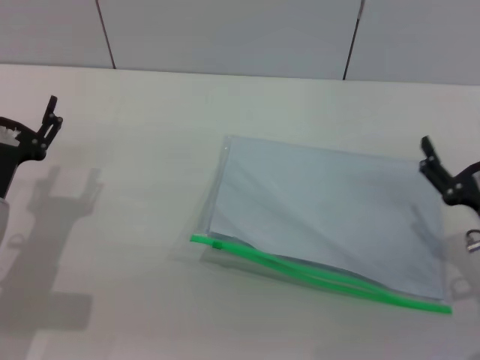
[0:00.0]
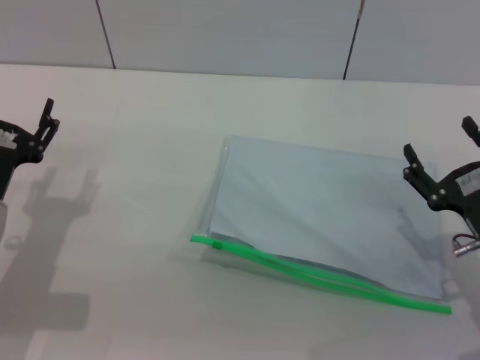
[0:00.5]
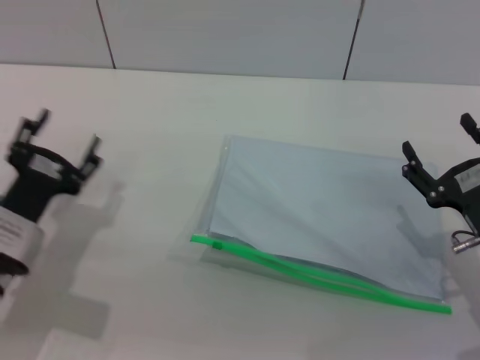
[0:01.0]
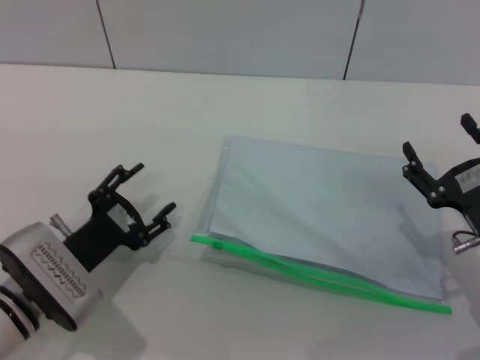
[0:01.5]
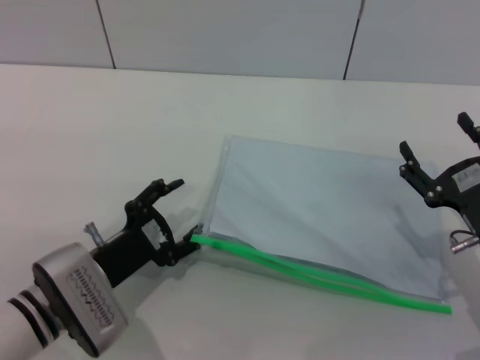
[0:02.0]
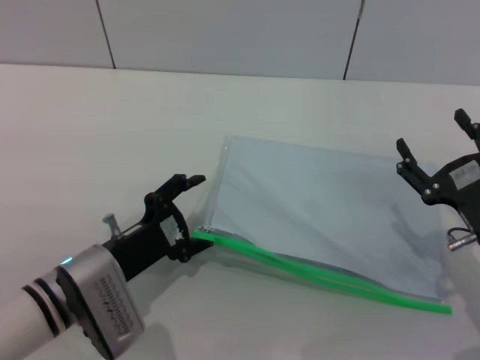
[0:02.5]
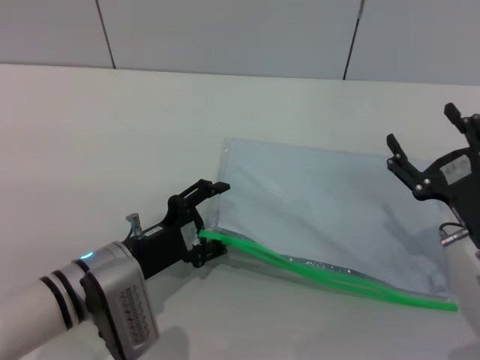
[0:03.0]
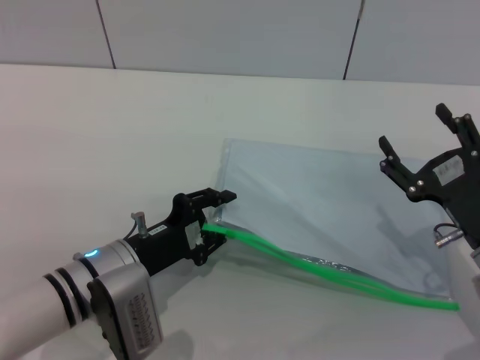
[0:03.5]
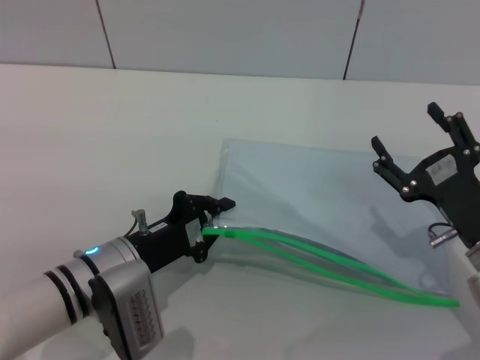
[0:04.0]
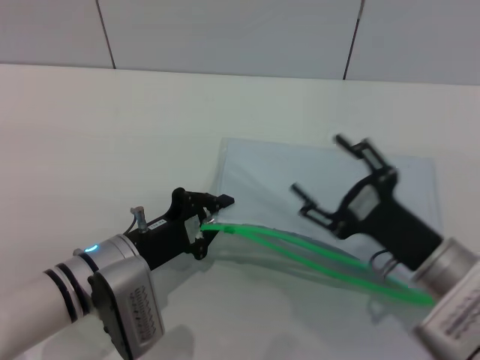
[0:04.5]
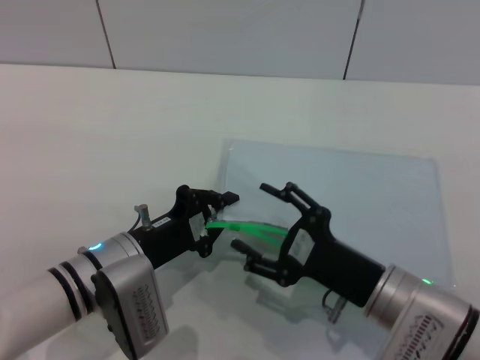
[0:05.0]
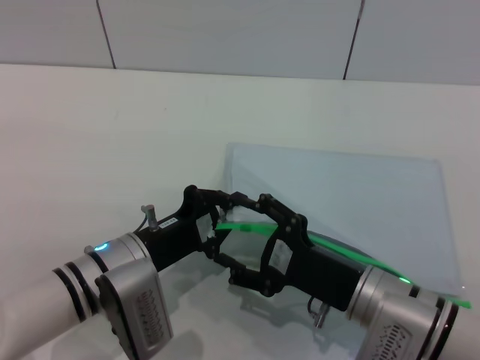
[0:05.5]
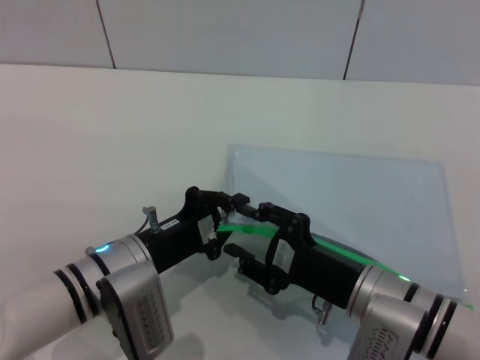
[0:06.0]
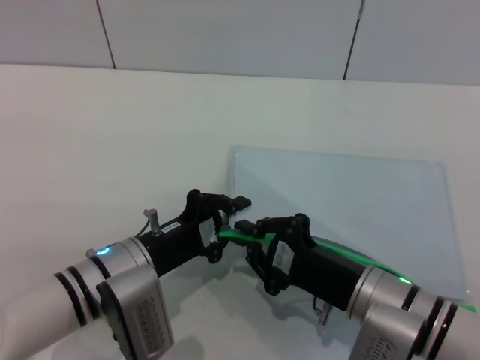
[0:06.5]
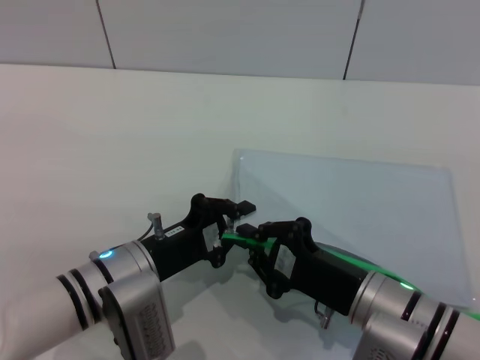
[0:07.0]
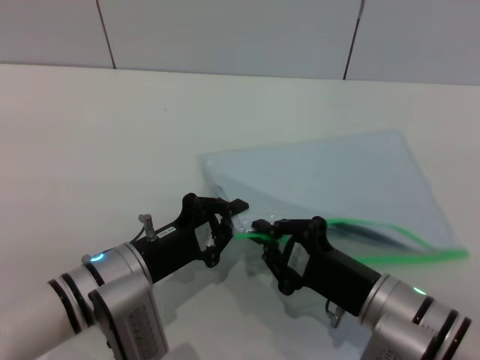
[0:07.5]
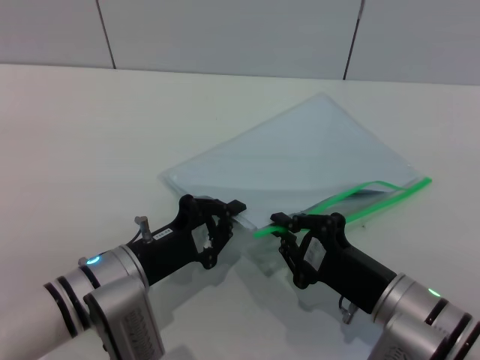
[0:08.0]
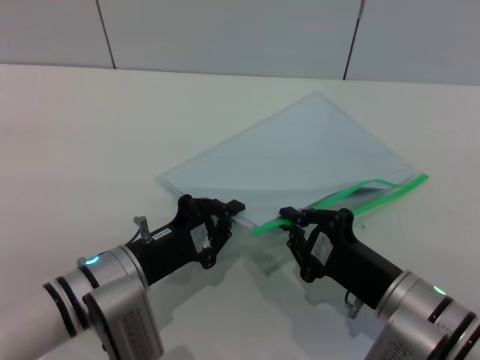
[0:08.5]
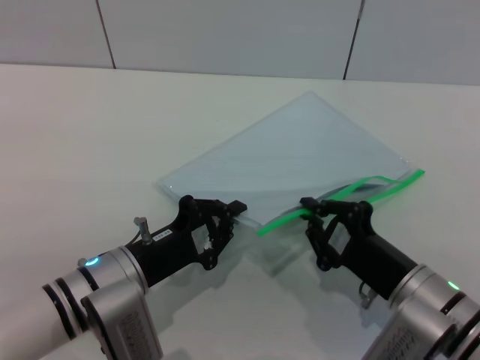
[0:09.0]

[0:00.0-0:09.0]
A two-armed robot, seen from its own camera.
Step, 0:00.0 to 0:04.5: Pick up the transparent plastic bag with the left gripper.
0:00.0 to 0:02.0: The left gripper moves to the right, about 5 cm.
0:02.0 to 0:04.5: The right gripper heads to the left, covering about 5 cm. Meanwhile the left gripper closes up.
0:04.5 to 0:07.0: The right gripper moves to the left, approximately 5 cm, and closes up.
0:07.0 to 0:09.0: The grippers stay close to where they were, moving slightly.

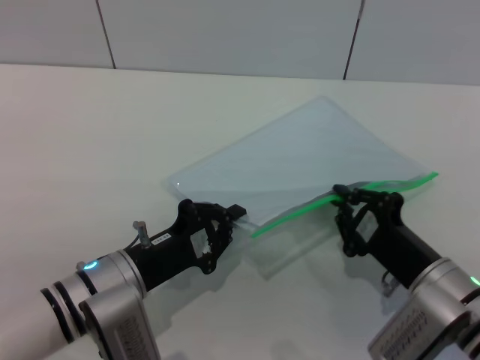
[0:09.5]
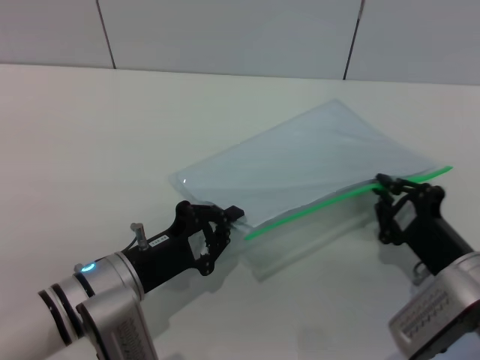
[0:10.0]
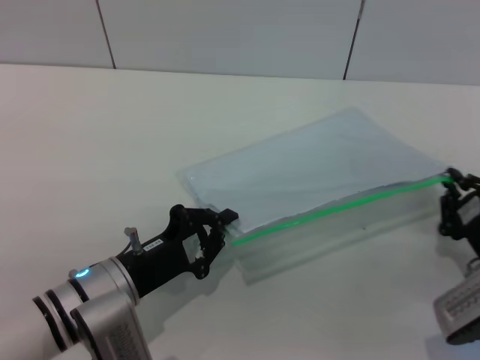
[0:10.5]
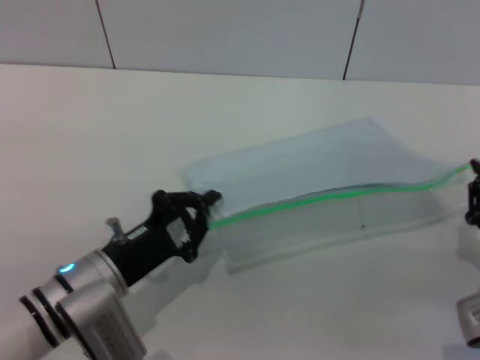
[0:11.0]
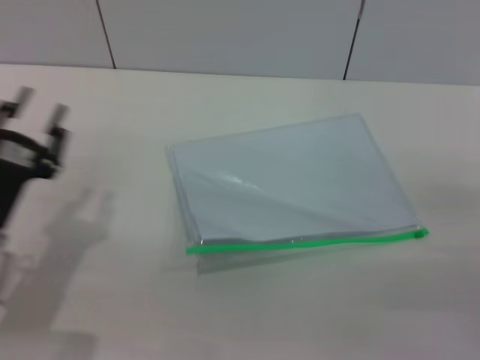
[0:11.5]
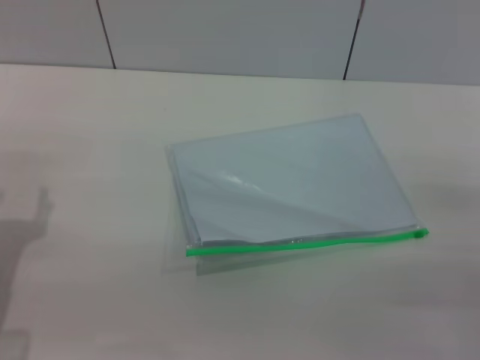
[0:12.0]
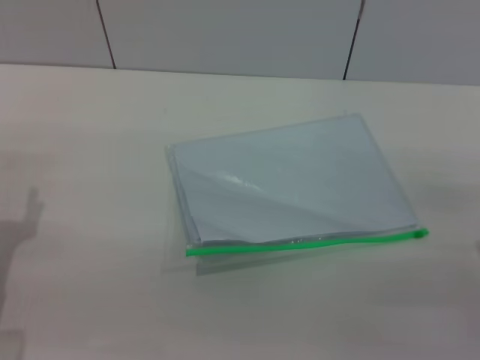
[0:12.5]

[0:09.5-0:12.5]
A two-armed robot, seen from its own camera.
0:09.5 to 0:11.0: The right gripper heads to the right, covering some 10 cm.
0:11.0 to 0:12.5: The right gripper opens its fingers. Meanwhile the left gripper goes some 15 cm to the left, and opens up.
